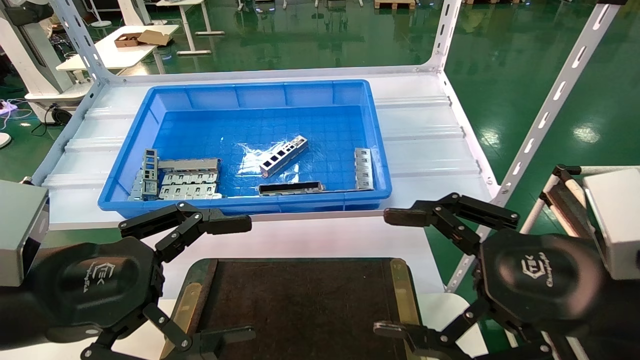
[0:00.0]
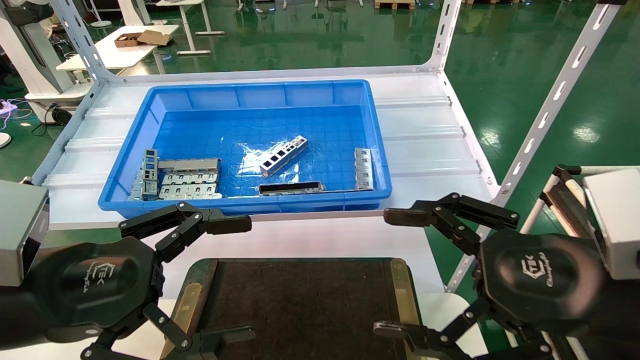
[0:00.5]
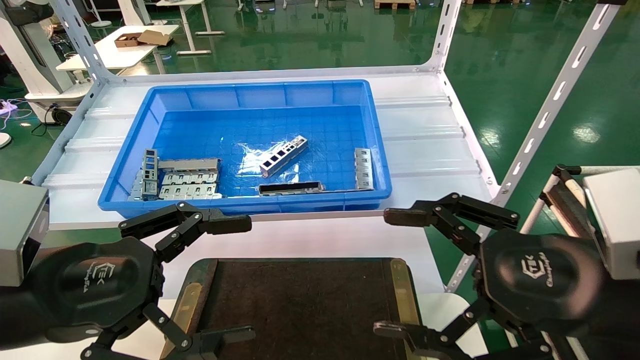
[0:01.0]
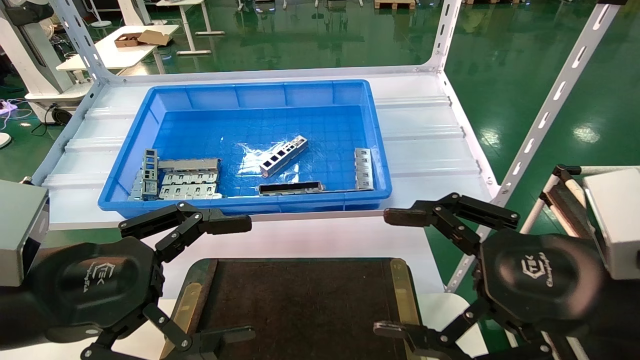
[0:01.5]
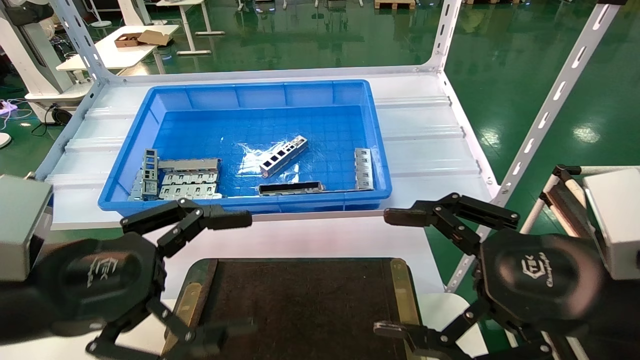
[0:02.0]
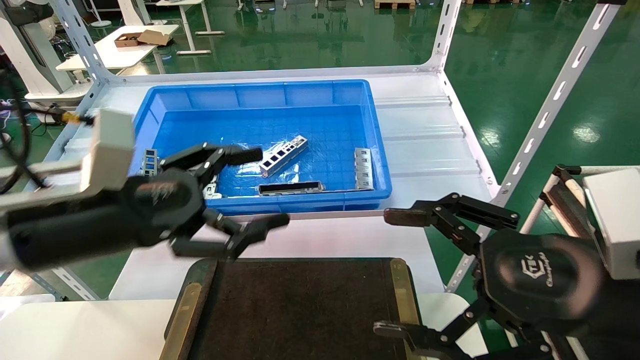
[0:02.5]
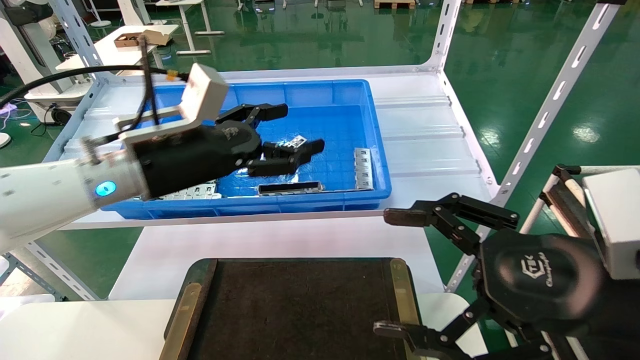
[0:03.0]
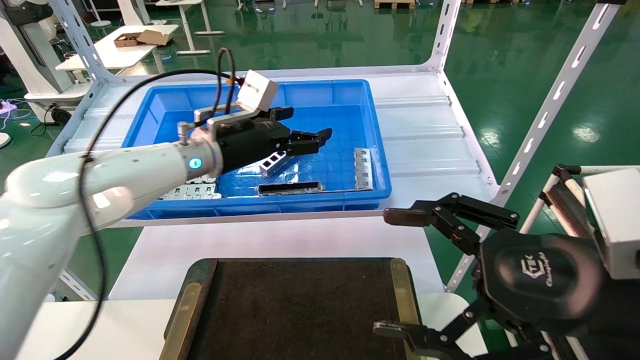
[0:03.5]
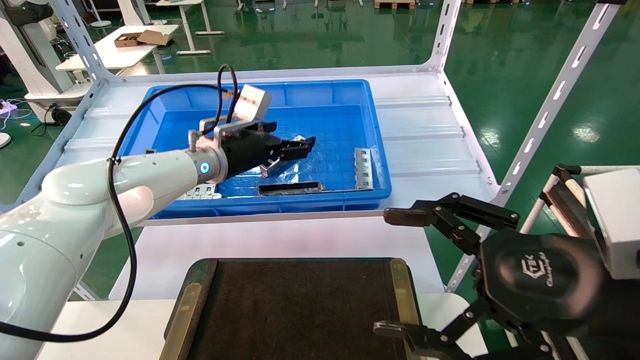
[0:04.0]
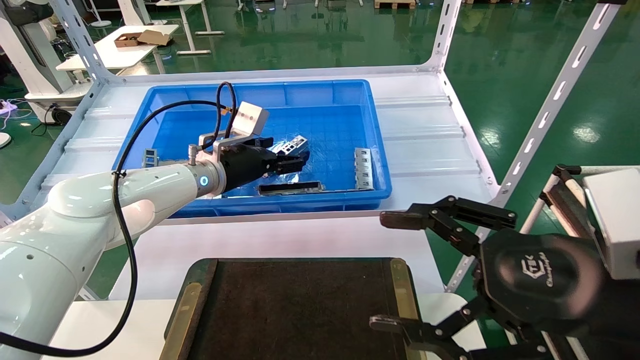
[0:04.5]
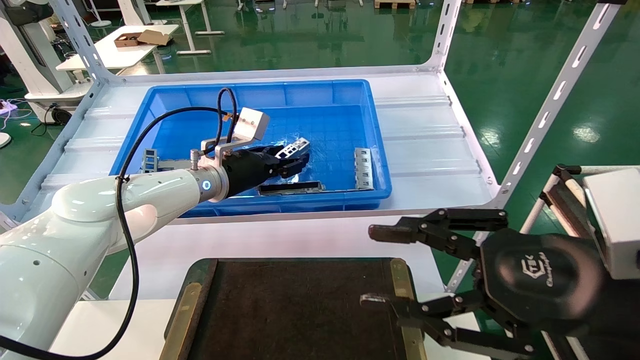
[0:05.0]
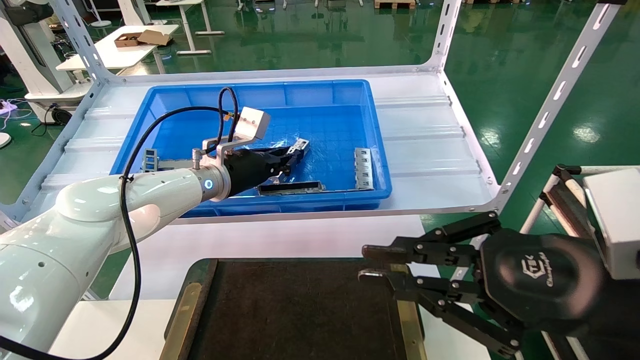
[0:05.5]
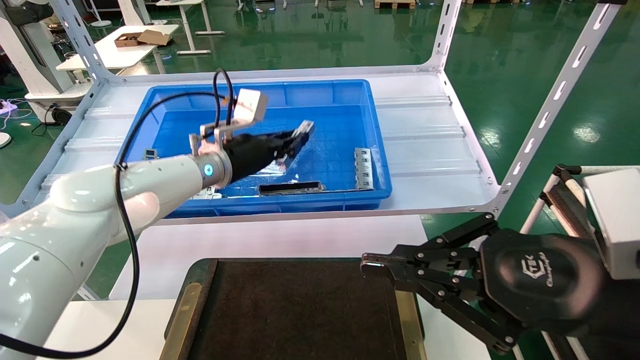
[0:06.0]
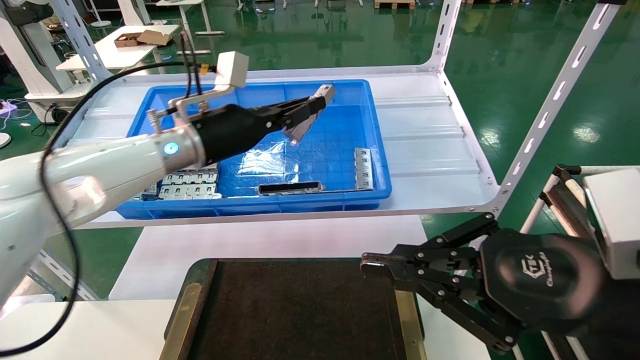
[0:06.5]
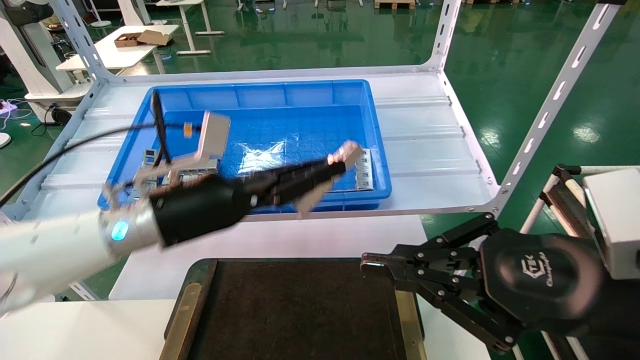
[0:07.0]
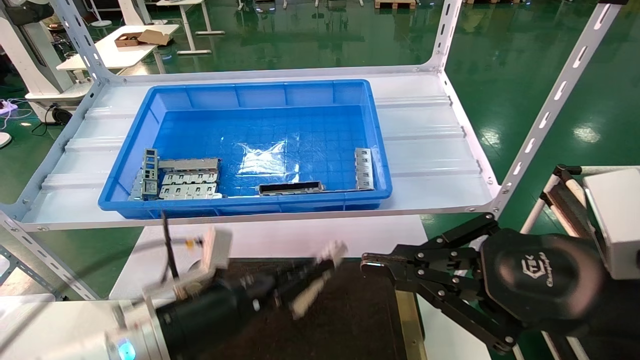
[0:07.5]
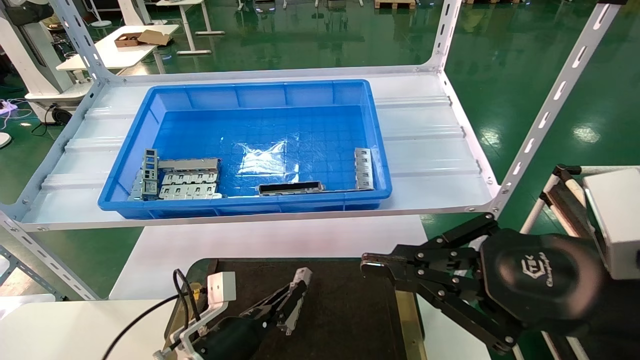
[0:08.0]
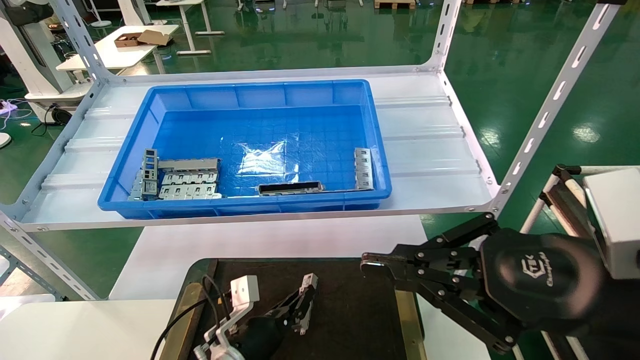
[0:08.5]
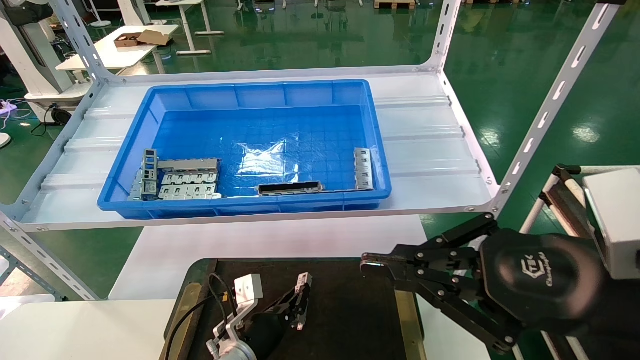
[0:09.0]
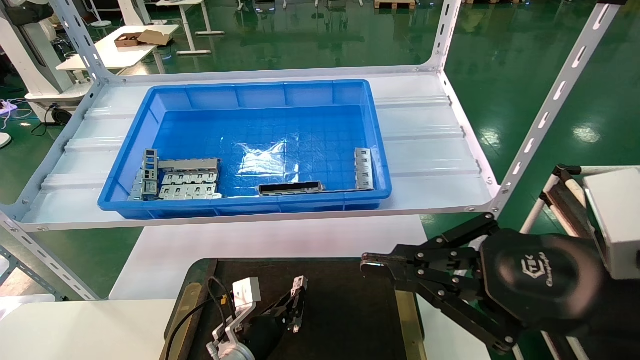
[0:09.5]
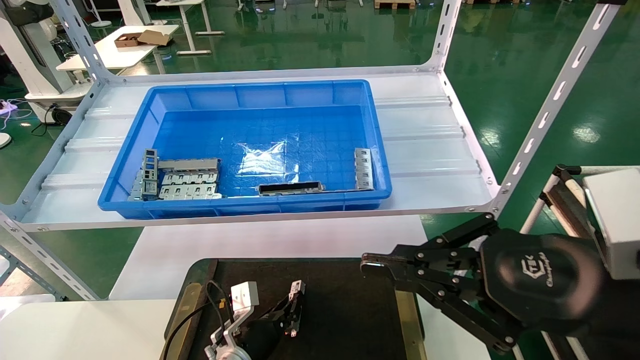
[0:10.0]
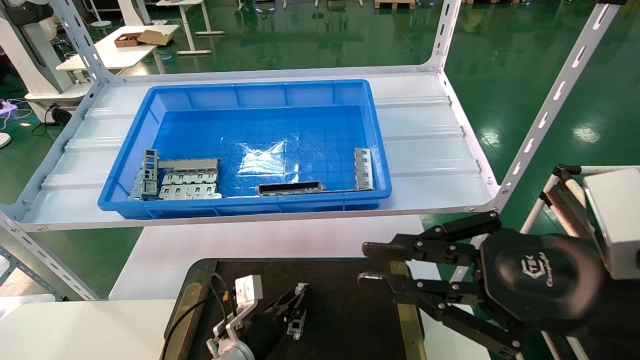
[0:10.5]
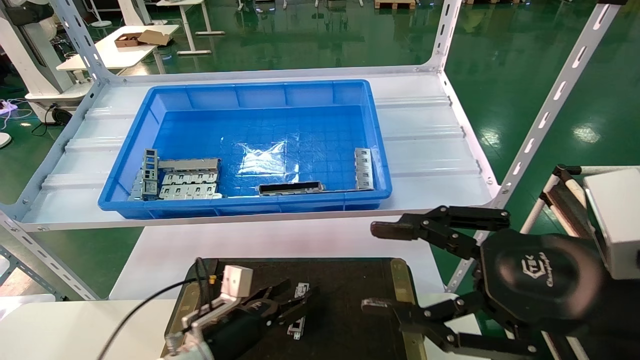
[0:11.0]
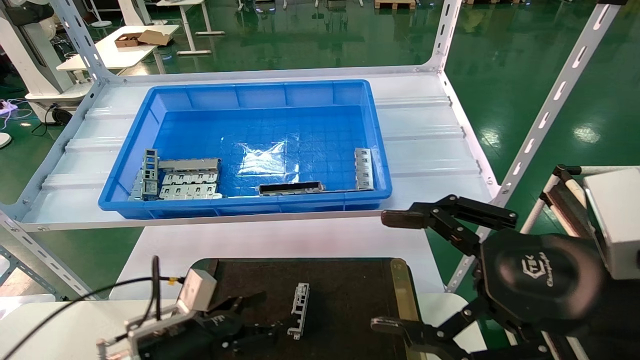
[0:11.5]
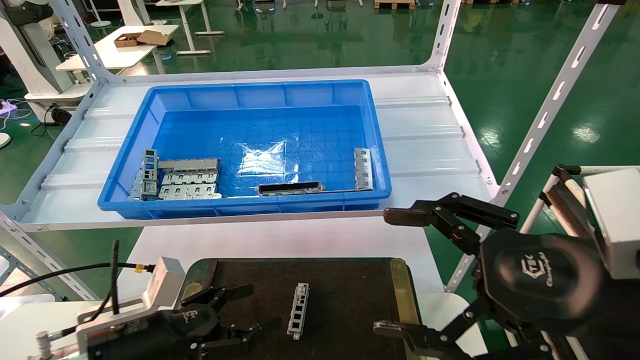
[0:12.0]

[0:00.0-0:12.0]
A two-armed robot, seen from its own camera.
Task of the whole recording: Grasp the part with one hand and place it on the black container.
Step, 0:02.5 to 0:06.0: Pick up the front USB bracket from the feeding area.
Step, 0:06.5 to 0:10.5: Place the front USB bracket into the box.
0:00.0 to 0:02.0: The two grippers keep their place.
0:02.0 to 0:04.0: The left gripper is displaced forward by some 30 cm.
0:04.0 to 0:06.0: The right gripper closes its fingers; the left gripper closes its fingers.
0:06.0 to 0:08.0: The left gripper shifts roughly 30 cm downward and backward.
0:08.0 to 0:10.0: The left gripper goes about 10 cm downward and forward.
0:10.0 to 0:12.0: The right gripper opens its fingers, while the left gripper moves upward, to the left and backward, about 20 cm, and opens up.

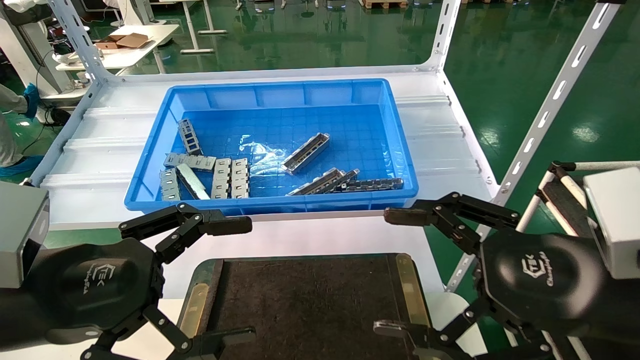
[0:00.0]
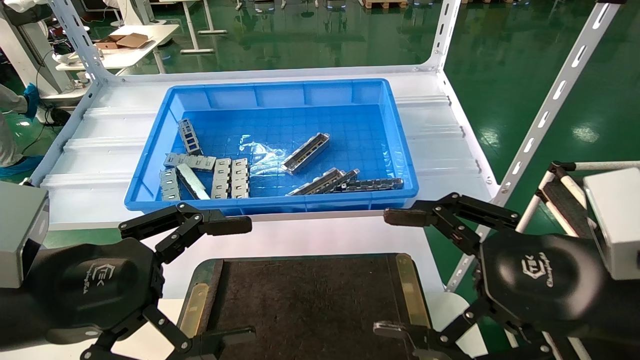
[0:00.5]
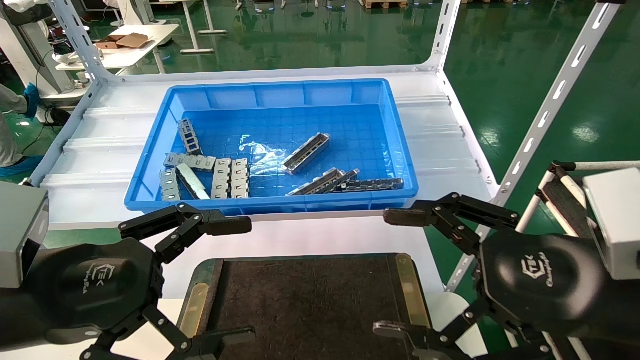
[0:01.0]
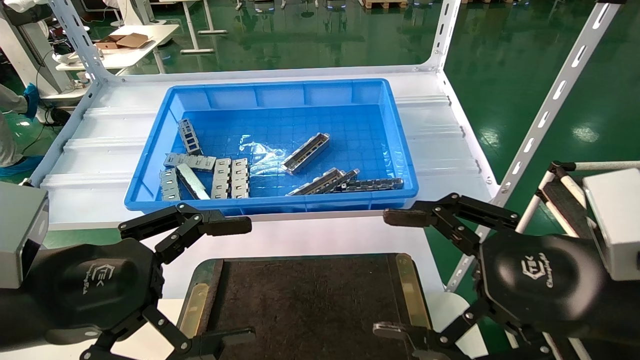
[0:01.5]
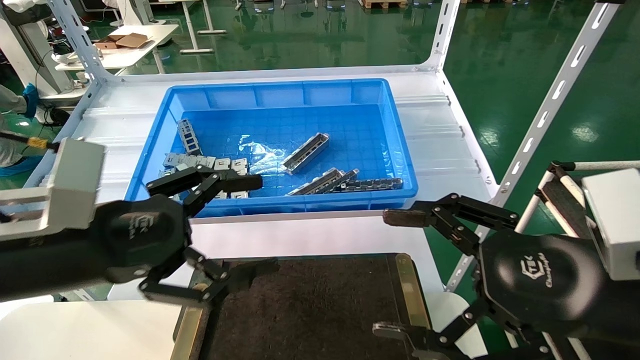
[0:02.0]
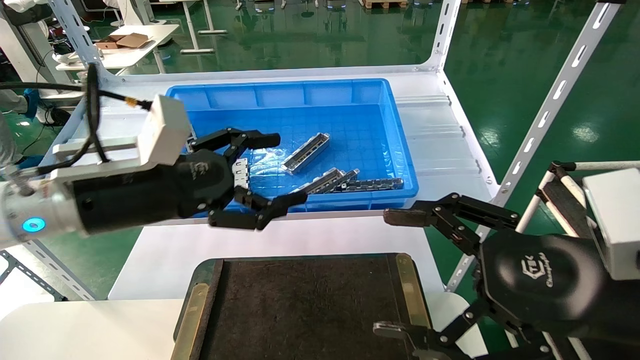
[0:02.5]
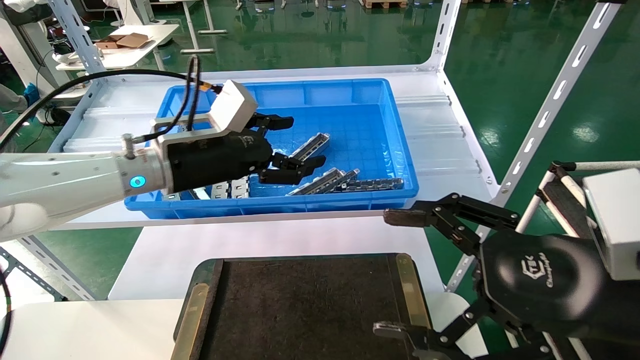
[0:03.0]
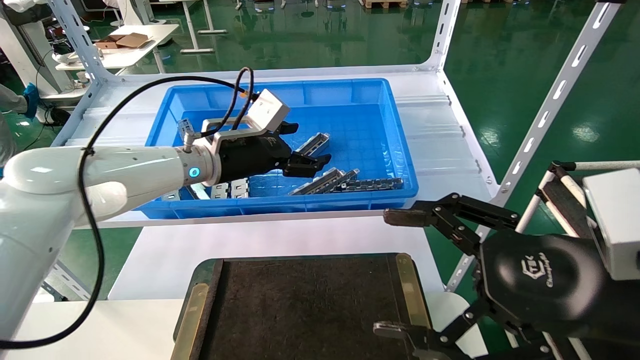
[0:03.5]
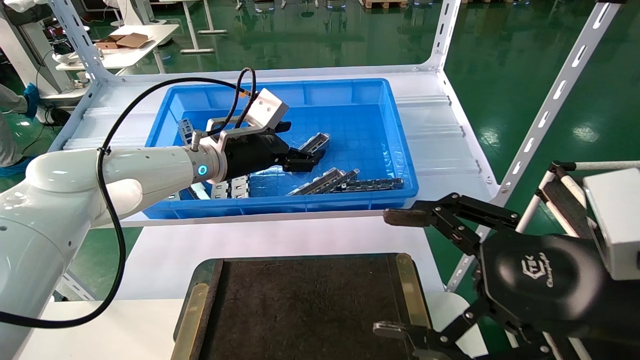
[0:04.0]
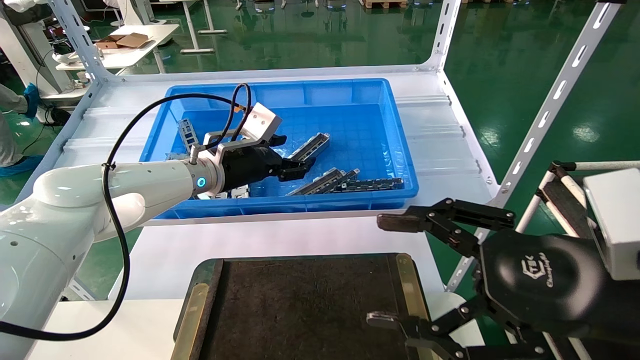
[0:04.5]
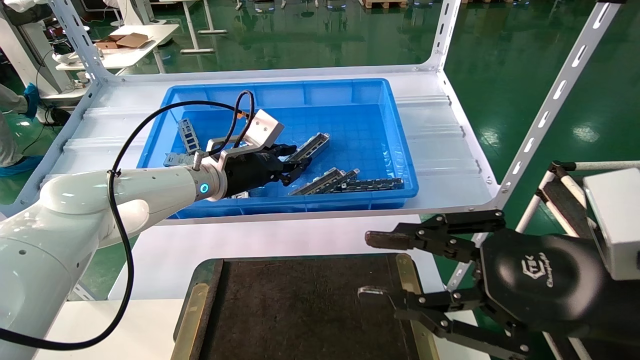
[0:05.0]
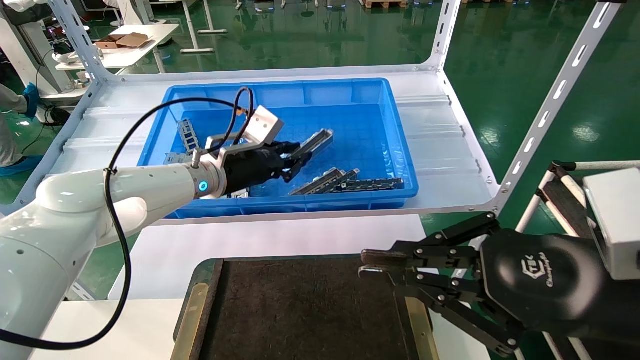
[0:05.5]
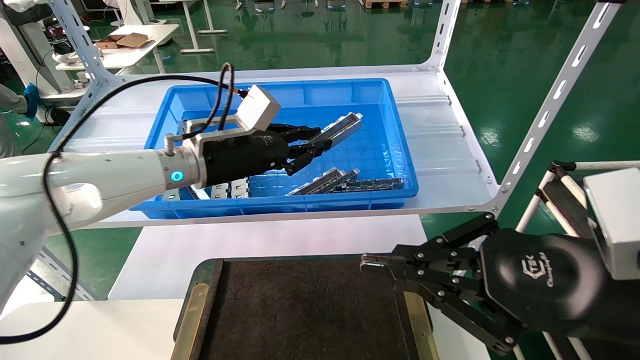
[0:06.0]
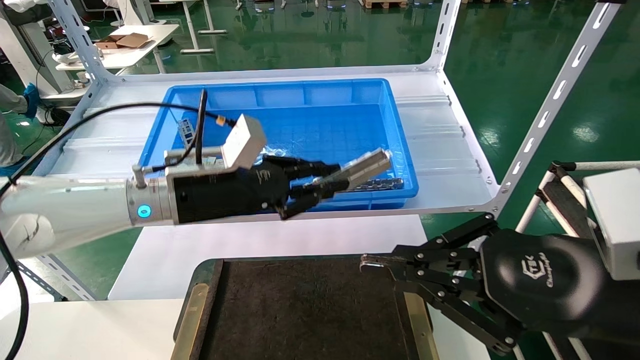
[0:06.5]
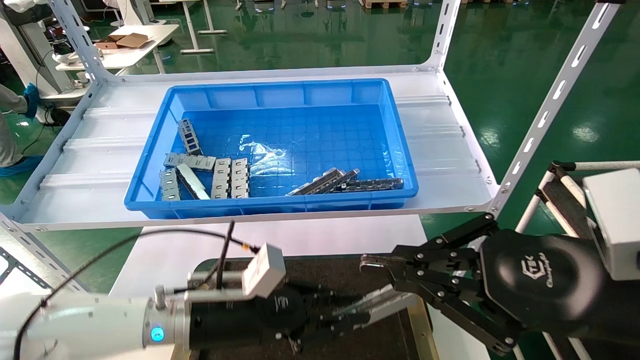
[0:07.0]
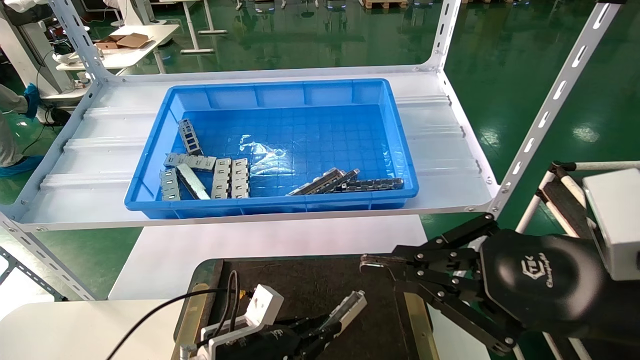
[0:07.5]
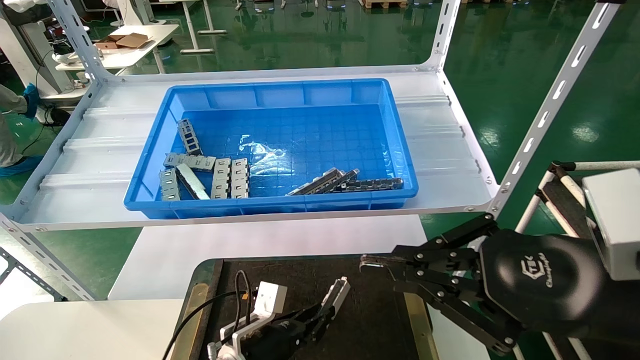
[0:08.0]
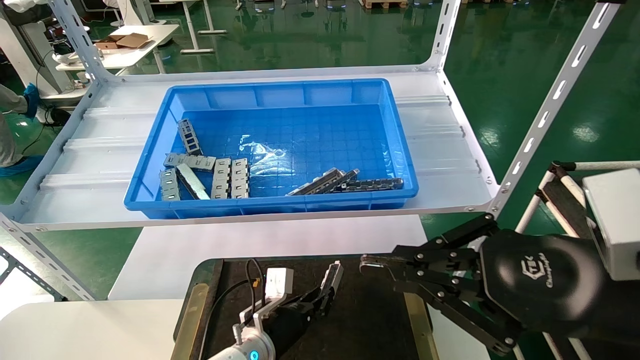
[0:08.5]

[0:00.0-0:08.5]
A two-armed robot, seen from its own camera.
Task of the whole recording: Grasp the part with one hand and place it on the black container.
Step, 0:02.0 to 0:05.0: Pick up the front USB bracket from the feeding area.
0:00.0 to 0:02.0: The grippers move only a little.
0:02.0 to 0:04.0: The left gripper travels forward by about 25 cm.
0:04.0 to 0:06.5: The right gripper closes its fingers. Meanwhile the left gripper heads backward, covering approximately 10 cm, and closes.
0:06.5 to 0:08.5: The left gripper is displaced downward by some 30 cm.
